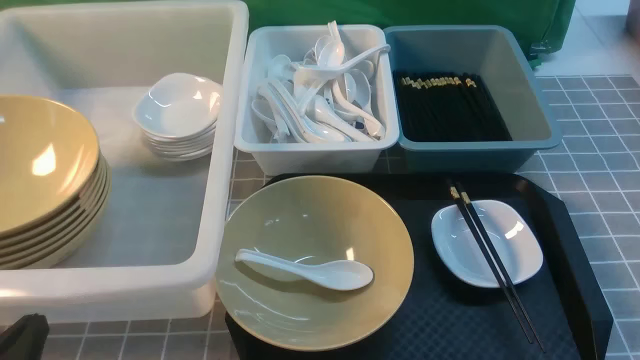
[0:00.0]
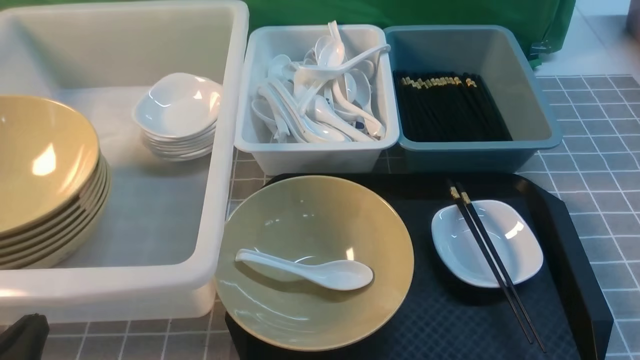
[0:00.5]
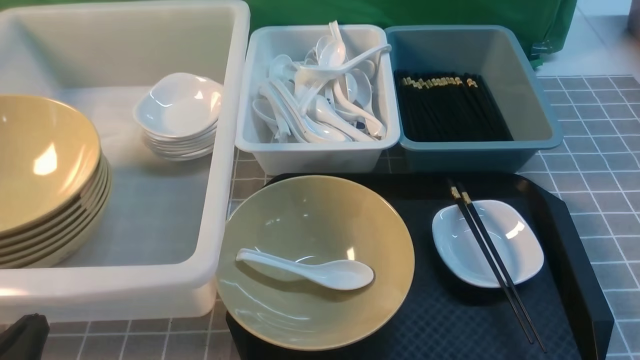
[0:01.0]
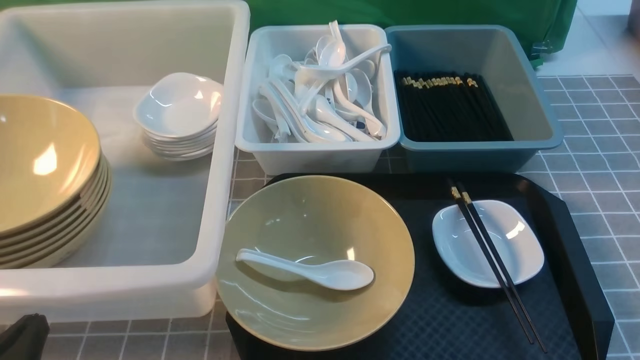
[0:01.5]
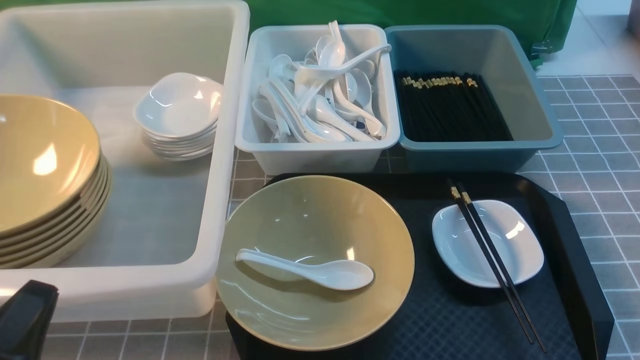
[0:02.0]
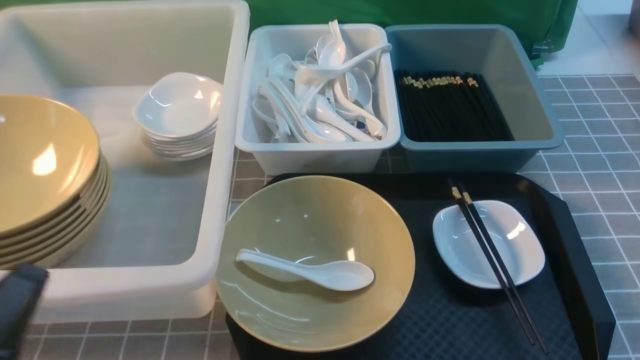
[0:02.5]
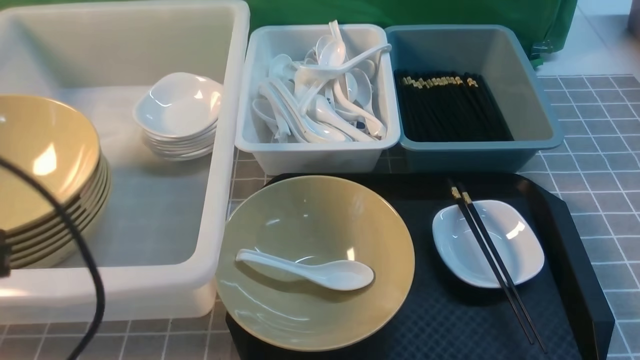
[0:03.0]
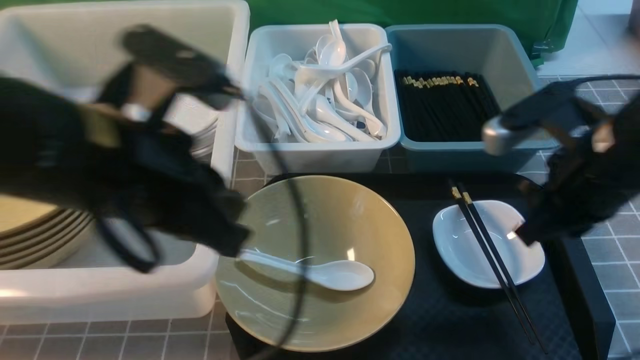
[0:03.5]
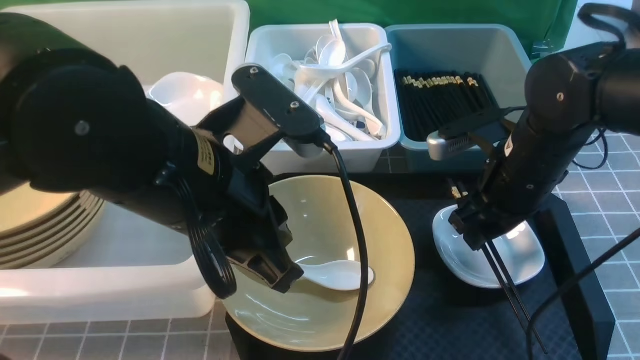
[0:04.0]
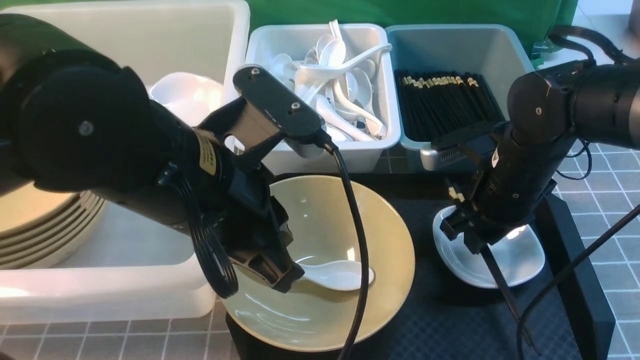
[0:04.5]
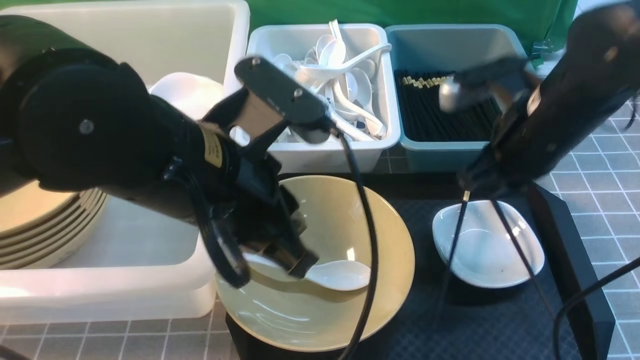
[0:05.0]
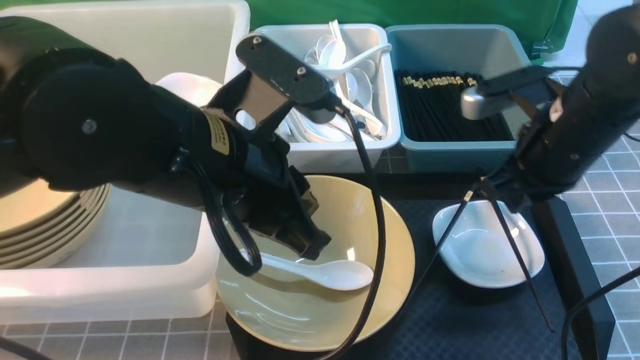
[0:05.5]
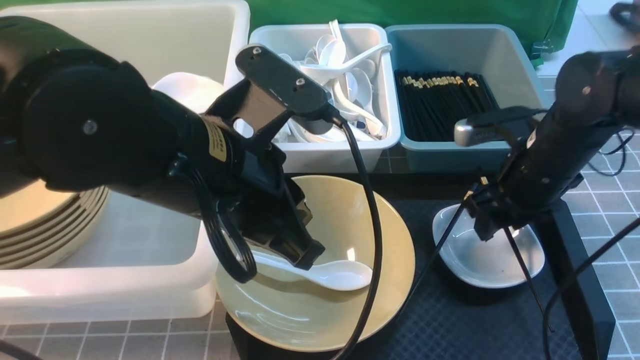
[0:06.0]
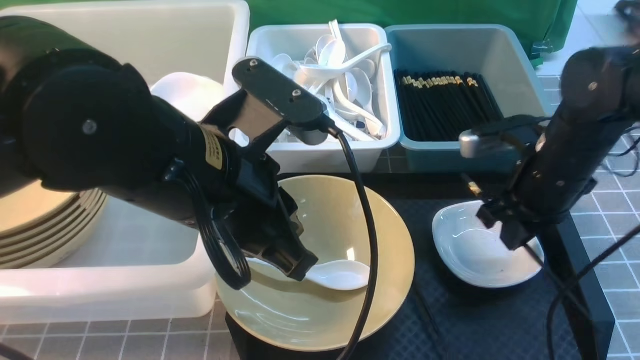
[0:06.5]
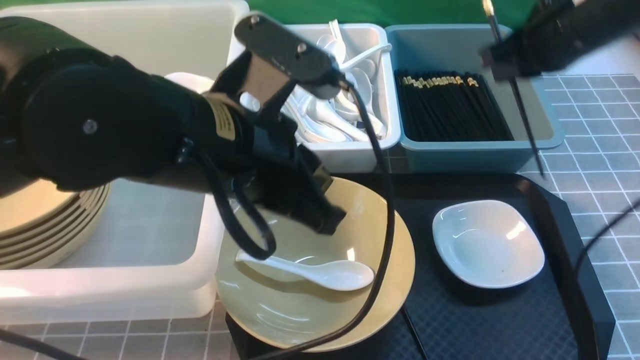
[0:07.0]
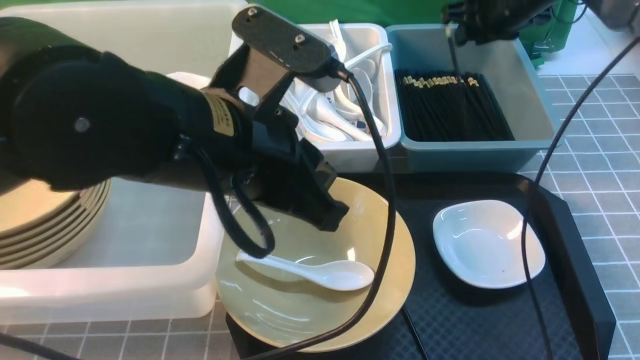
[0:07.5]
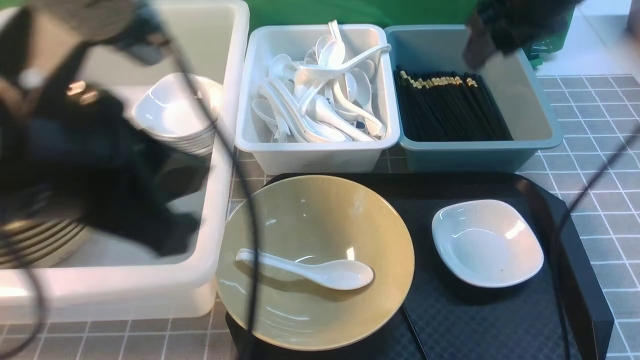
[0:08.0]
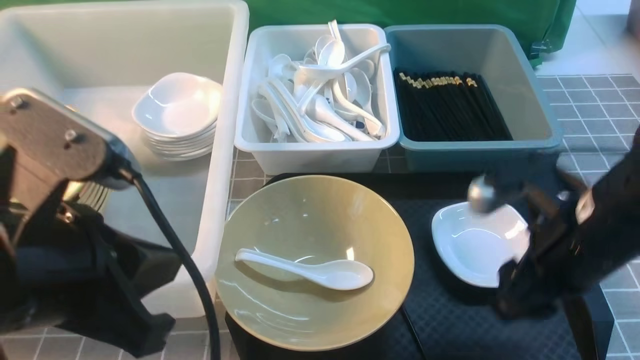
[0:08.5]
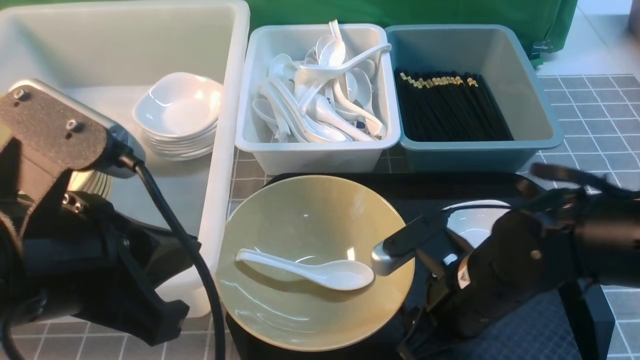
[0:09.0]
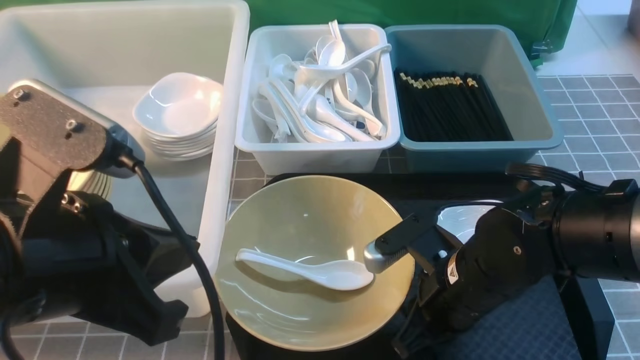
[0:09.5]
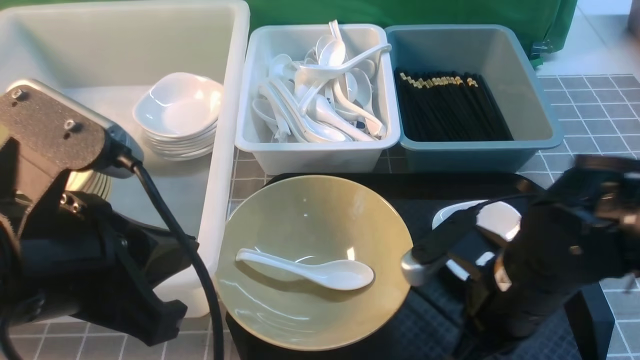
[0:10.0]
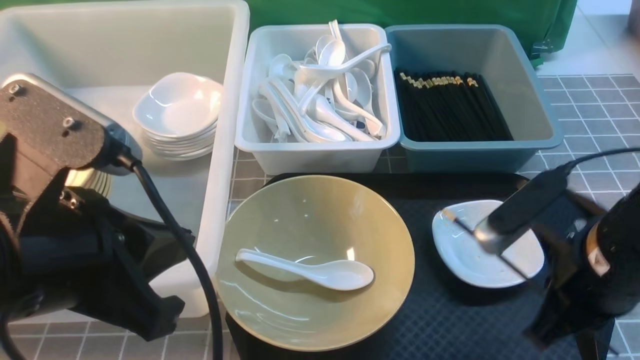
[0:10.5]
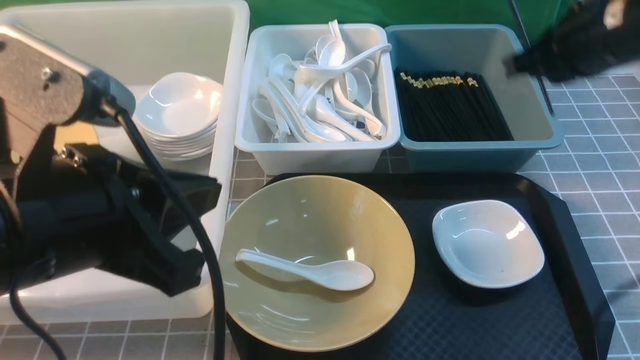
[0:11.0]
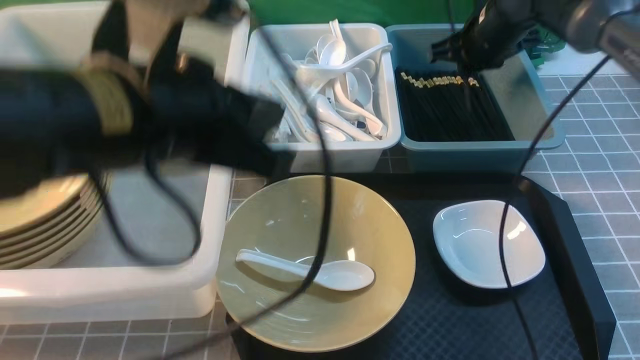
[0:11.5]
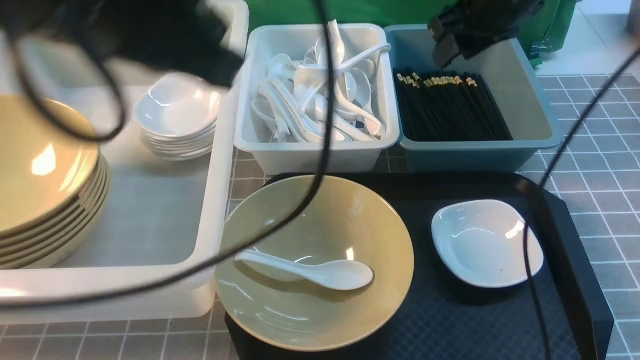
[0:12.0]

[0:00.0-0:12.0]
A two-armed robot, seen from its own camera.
Task of the whole recording: on grey table put chopsticks spoon bowls plates into blue grey white boxes.
Step, 0:00.0 to 0:07.0: use the right arm to grab a chopstick.
Step, 0:08.0 to 0:10.0: use the right arm to grab a chopstick.
Step, 0:10.5 to 0:11.5: use the right arm to put a chopstick into the small storage box on the right.
0:02.0 to 0:04.0: The right gripper goes approximately 30 cm forward and to the left, and opens up. The left gripper is displaced to the right, forward and upward by roughly 25 cm.
0:04.0 to 0:06.0: The right gripper closes, then opens again.
0:06.0 to 0:08.0: The left gripper moves to the left, backward and upward, about 10 cm. Meanwhile the right gripper heads upward, covering some 15 cm, goes forward and returns, roughly 15 cm each way, and closes, then opens again.
0:08.0 to 0:10.0: The left gripper shifts by roughly 5 cm, while the right gripper shifts roughly 25 cm backward and downward, and closes.
0:10.0 to 0:12.0: The left gripper is displaced upward and forward by some 10 cm, while the right gripper moves forward and upward, some 25 cm, and opens up.

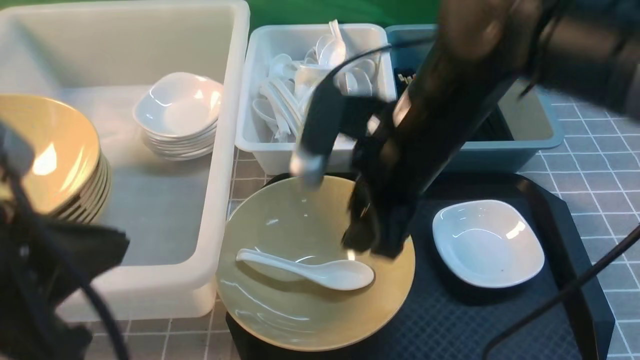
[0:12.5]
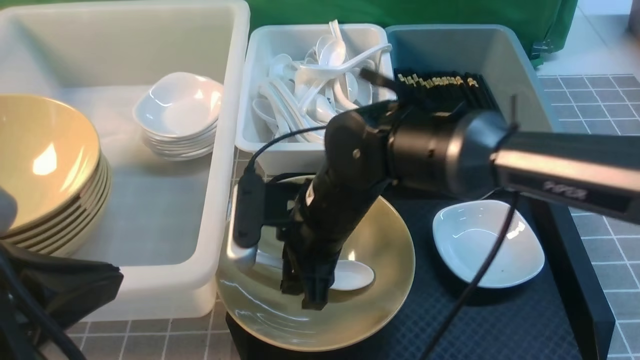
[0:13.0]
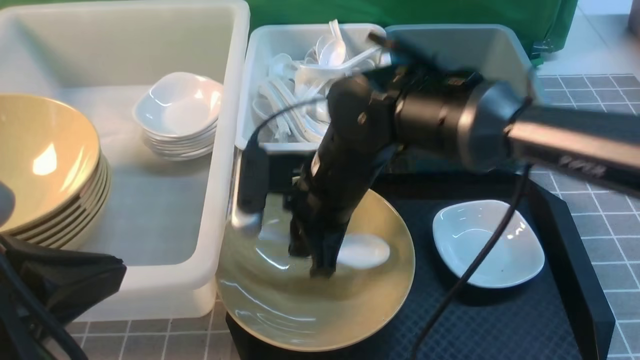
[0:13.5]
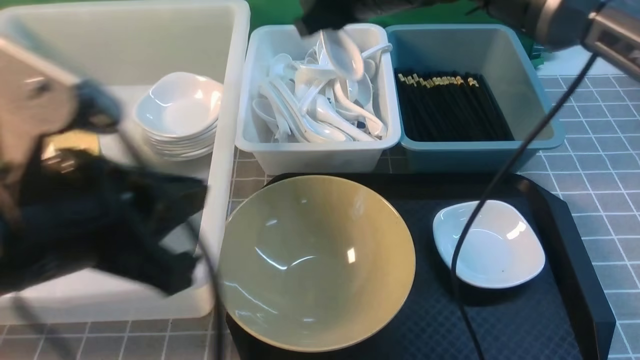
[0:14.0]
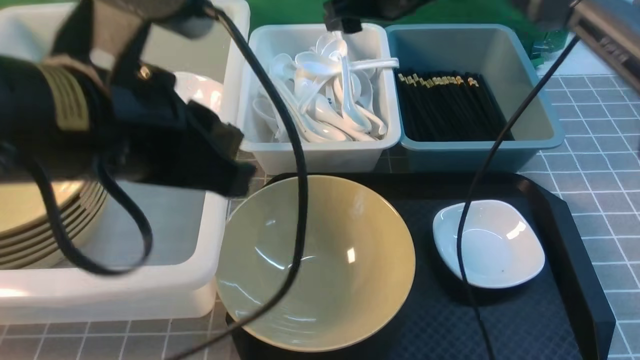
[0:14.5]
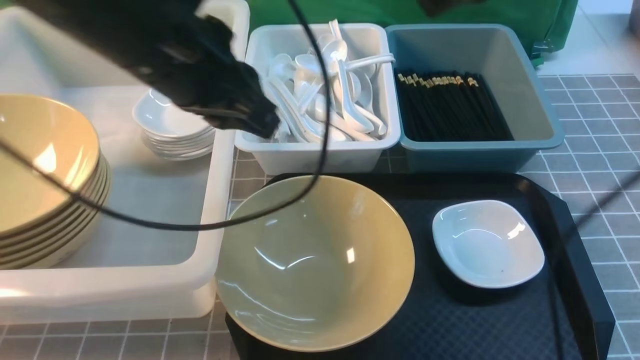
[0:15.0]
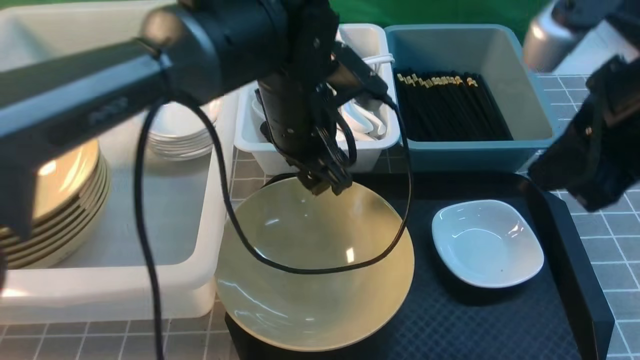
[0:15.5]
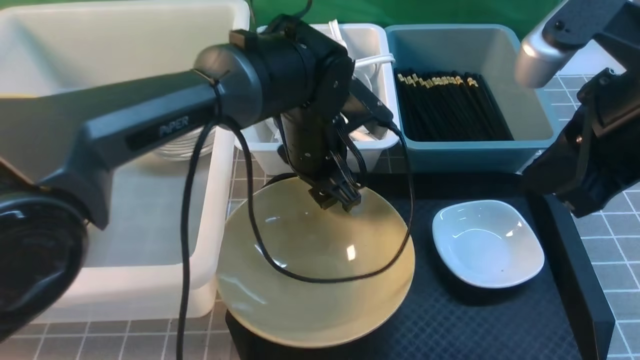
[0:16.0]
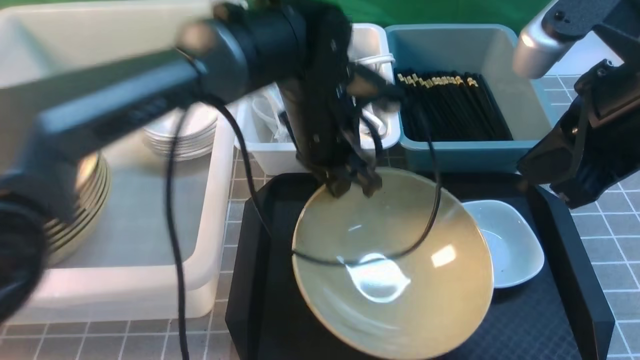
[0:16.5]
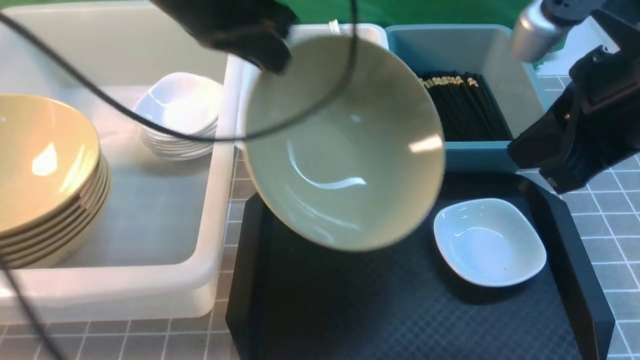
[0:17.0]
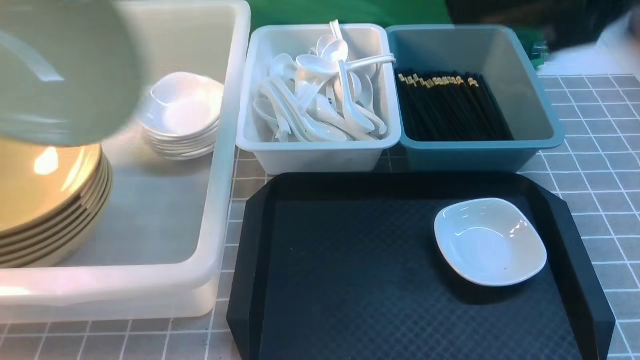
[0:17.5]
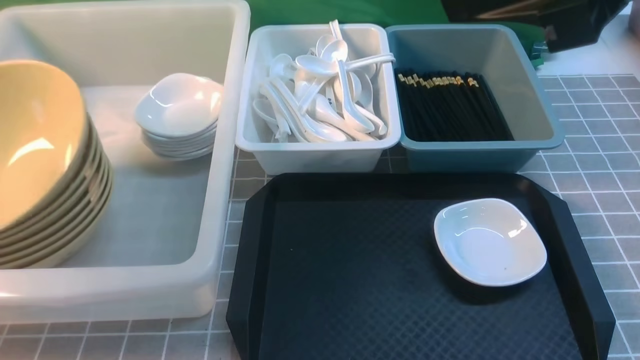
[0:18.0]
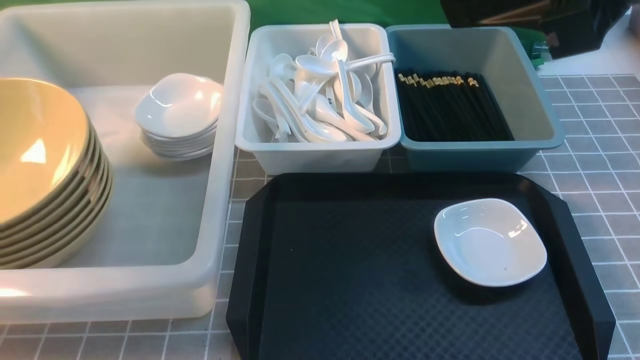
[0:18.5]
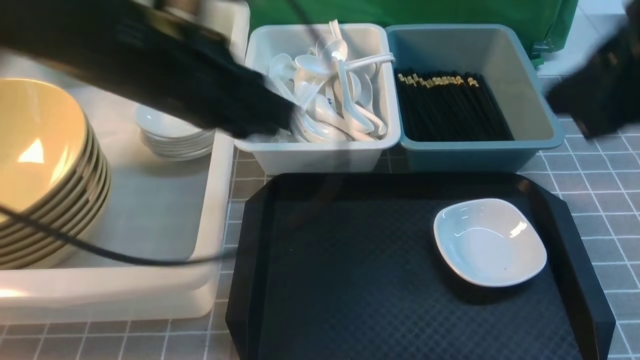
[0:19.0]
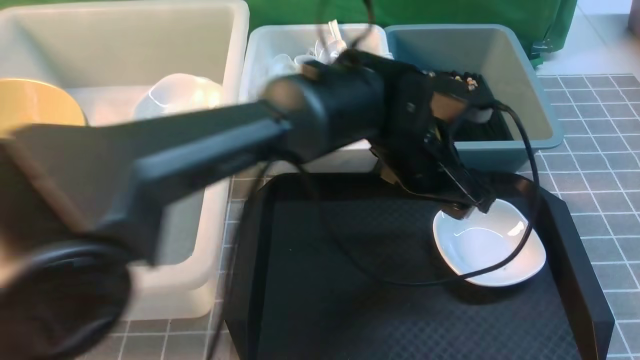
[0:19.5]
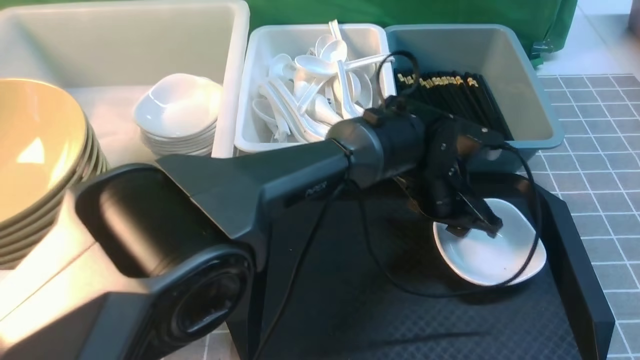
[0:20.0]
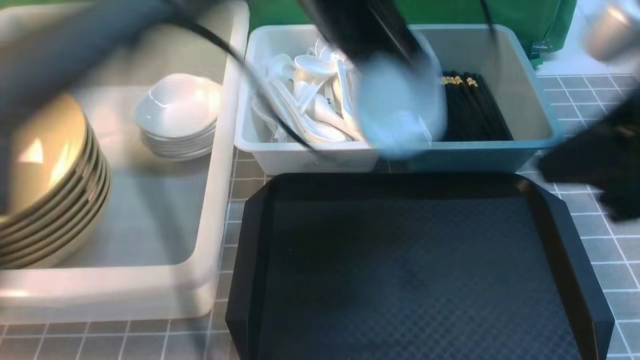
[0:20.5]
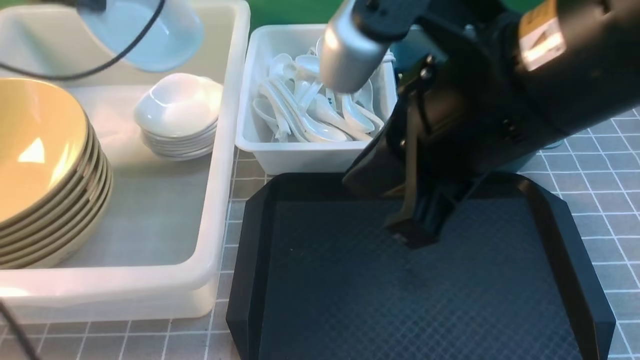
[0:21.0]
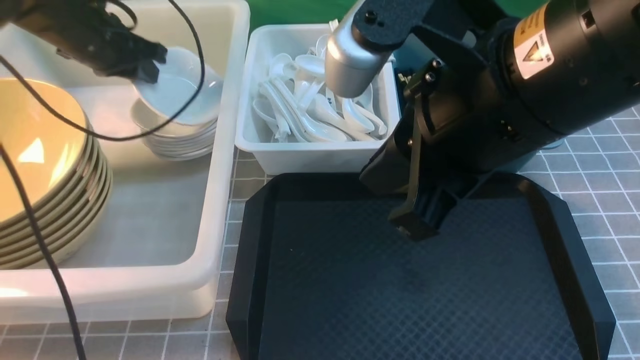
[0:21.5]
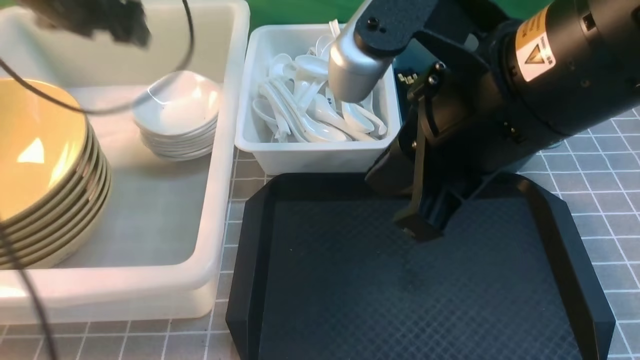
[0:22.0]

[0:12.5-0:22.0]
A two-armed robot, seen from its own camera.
Task of the whole recording: on grey table put chopsticks spoon bowls plates into blue grey white boxes.
Step, 0:12.5 to 0:13.5: use the right arm to grab the soup spoon in the middle.
Step, 0:14.0 to 0:14.5: use the right arm to put the soup spoon into the small storage box in the middle.
Step, 0:15.0 to 0:16.5: use the left arm to grab the yellow noodle bowl on the left.
Step, 0:17.0 to 0:17.5: use the left arm to put the noodle bowl into the large storage box on the left.
Step, 0:18.5 to 0:20.0: use the left arm to grab the plate.
Step, 0:20.5 to 0:22.0: use the left arm to put the plate into the large storage box on the left.
0:12.5 to 0:14.5: The right gripper travels forward and upward by about 15 cm, and closes, then reopens. Meanwhile the left gripper travels forward and to the right by some 10 cm.
0:14.5 to 0:16.5: The left gripper goes about 20 cm forward, to the right and downward, and opens, then closes again. Meanwhile the right gripper travels backward and to the right by some 25 cm, and closes.
0:16.5 to 0:18.0: The right gripper is displaced upward by roughly 10 cm, while the left gripper is displaced to the left by some 40 cm.
0:18.0 to 0:20.0: The left gripper shifts approximately 50 cm to the right, and opens. The right gripper shifts some 15 cm backward, to the right and downward.
0:20.0 to 0:22.0: The right gripper shifts approximately 20 cm to the left and forward. Meanwhile the left gripper moves to the left and upward, roughly 40 cm, and opens up.
